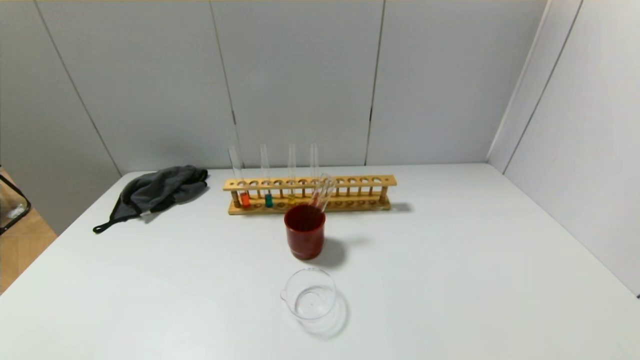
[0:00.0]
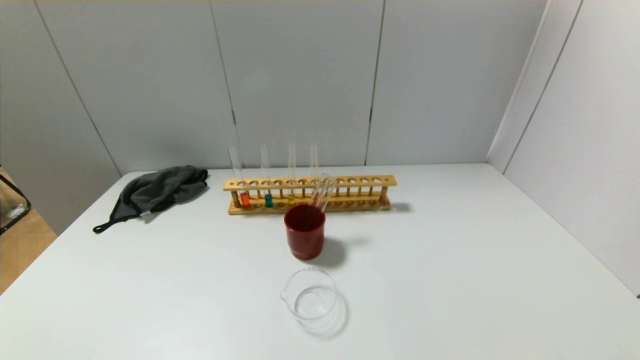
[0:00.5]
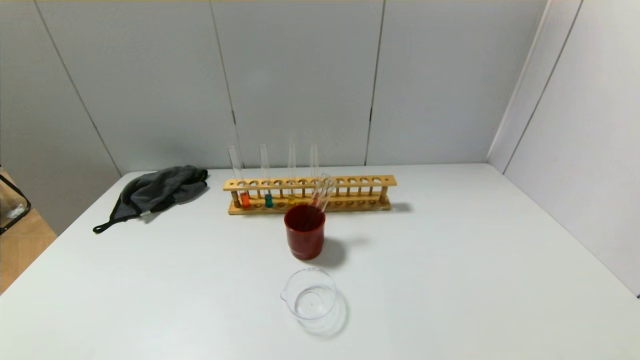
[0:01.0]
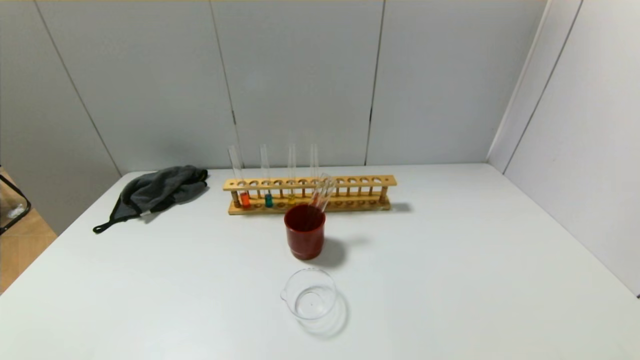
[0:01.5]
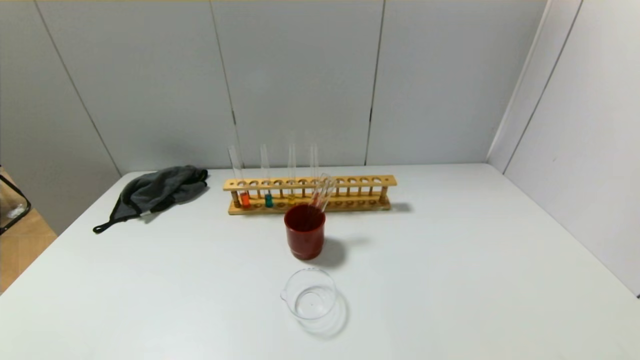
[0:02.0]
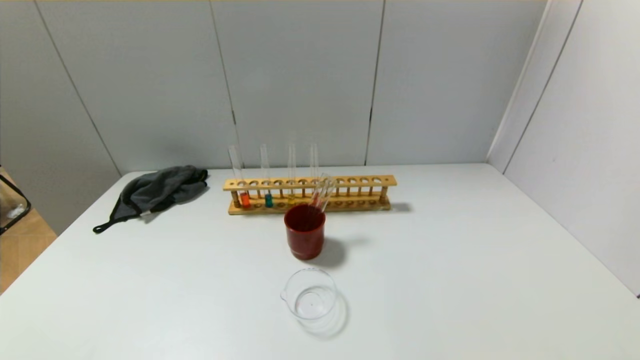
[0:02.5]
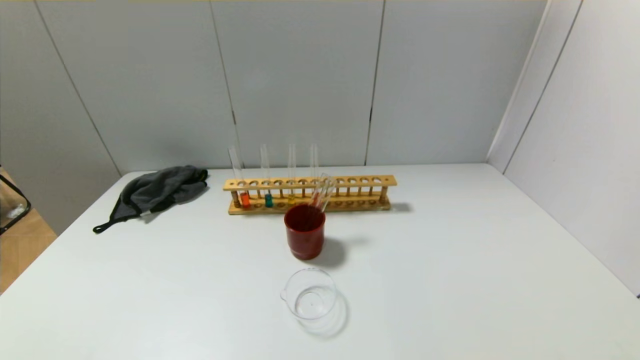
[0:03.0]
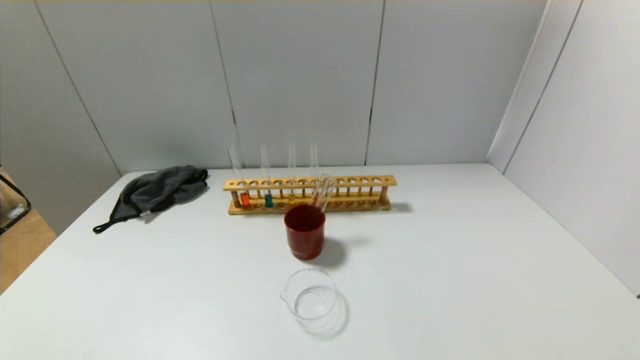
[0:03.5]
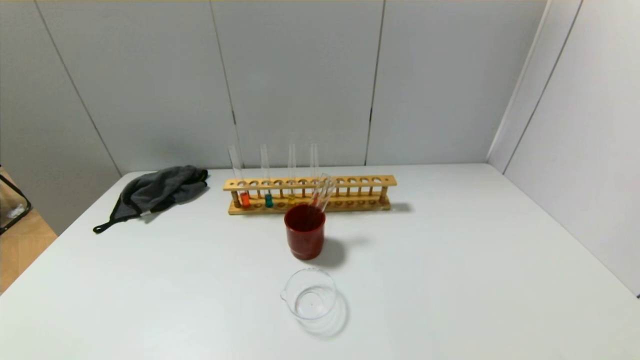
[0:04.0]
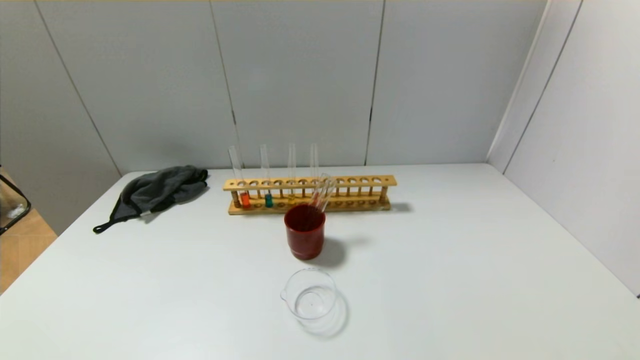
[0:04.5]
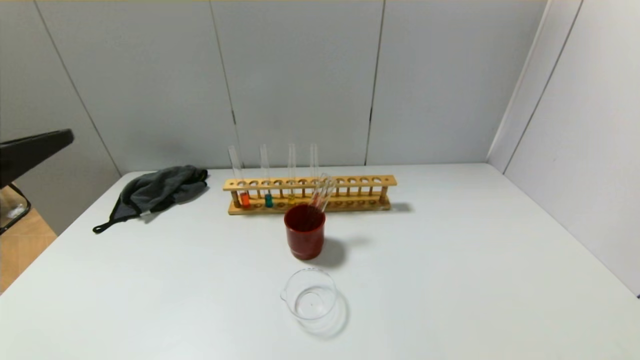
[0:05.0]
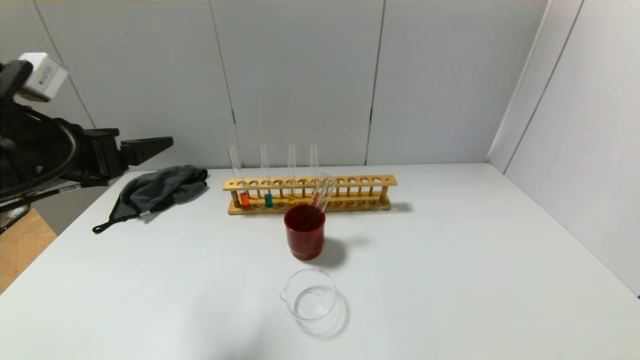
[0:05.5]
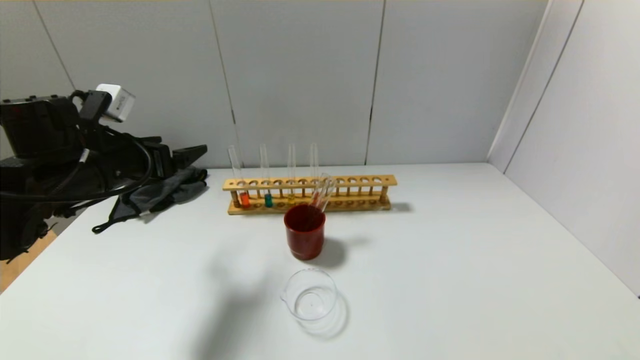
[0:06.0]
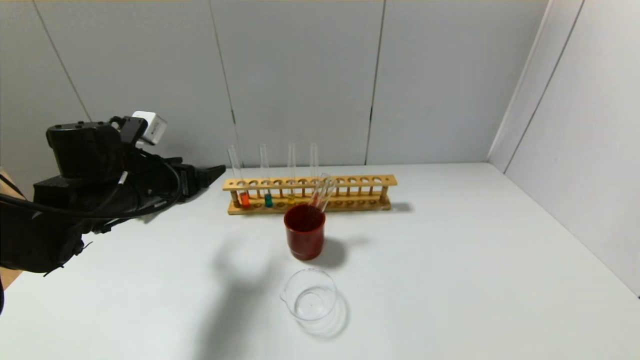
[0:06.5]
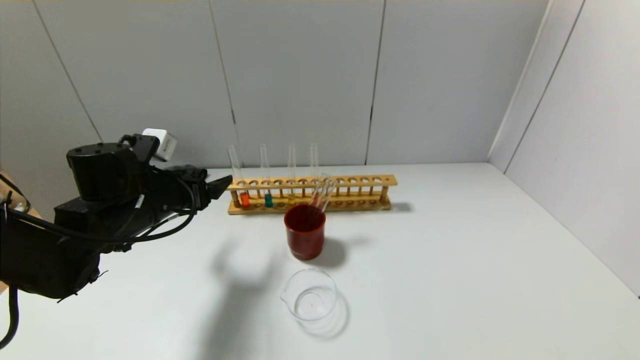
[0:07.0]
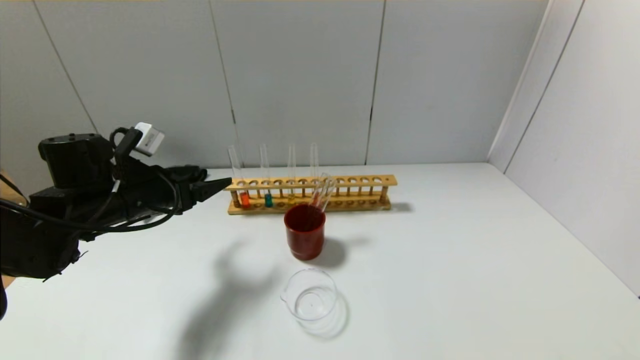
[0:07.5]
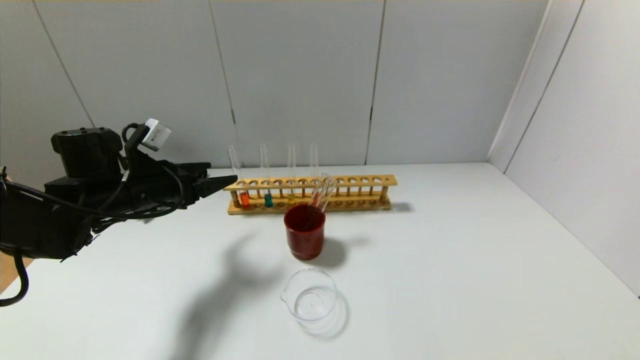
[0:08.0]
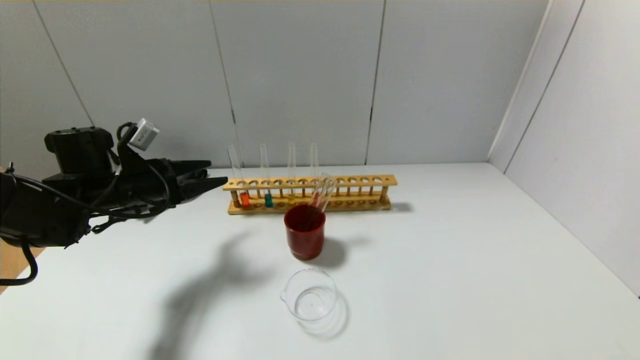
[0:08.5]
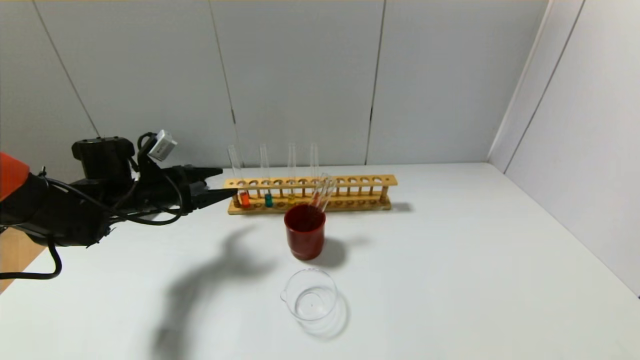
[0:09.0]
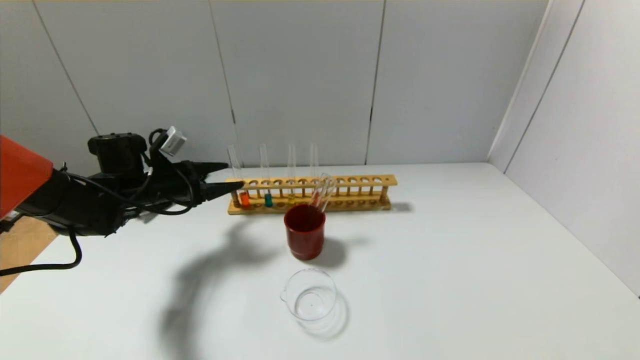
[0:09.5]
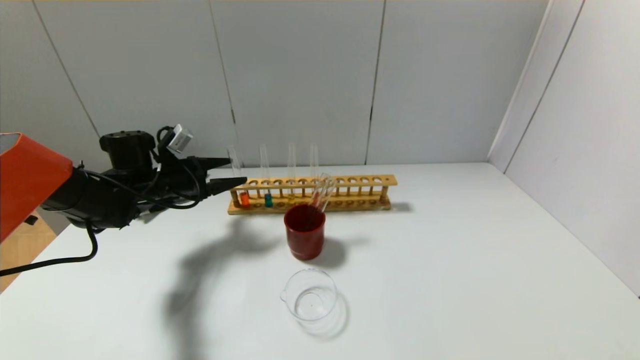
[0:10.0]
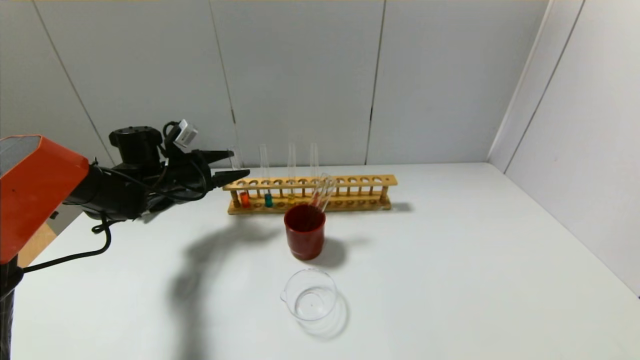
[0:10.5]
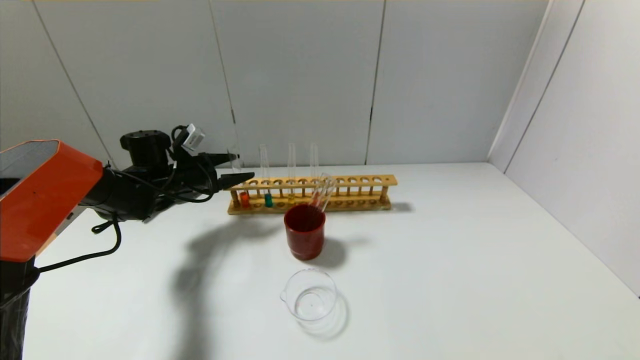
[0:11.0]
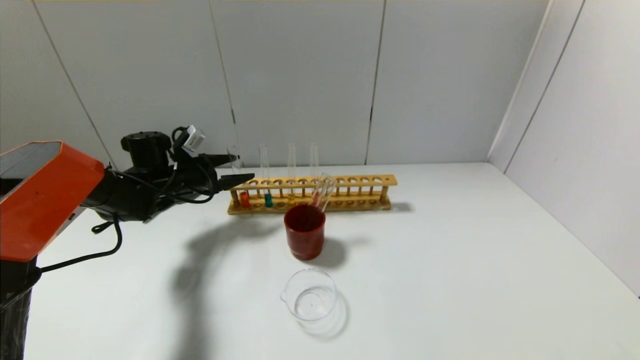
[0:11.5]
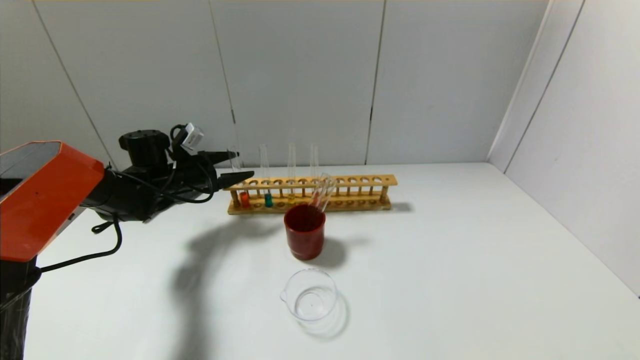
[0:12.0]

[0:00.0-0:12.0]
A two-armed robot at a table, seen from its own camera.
0:00.0 to 0:02.0: Neither gripper changes place.
0:04.0 to 0:06.0: The left gripper moves forward, roughly 35 cm.
0:06.0 to 0:08.0: The left gripper moves downward, some 5 cm.
0:08.0 to 0:10.0: The left gripper moves forward, some 10 cm.
0:10.0 to 0:12.0: The grippers move only a little.

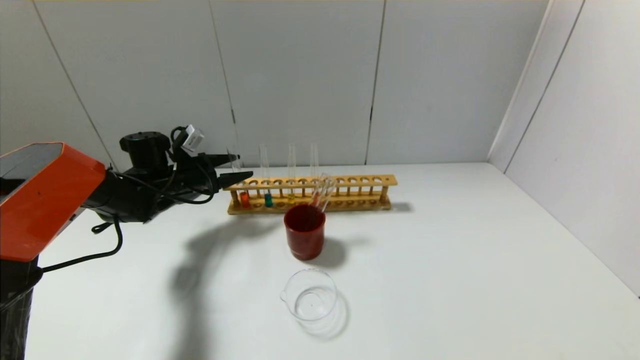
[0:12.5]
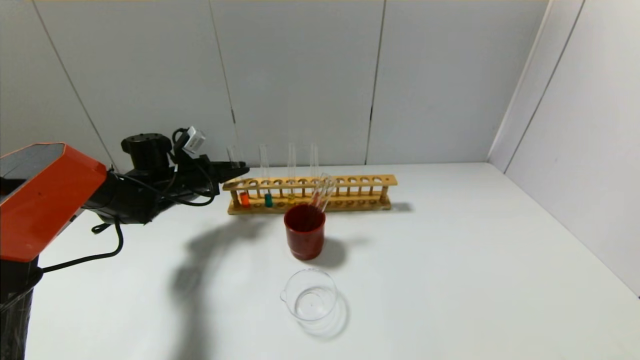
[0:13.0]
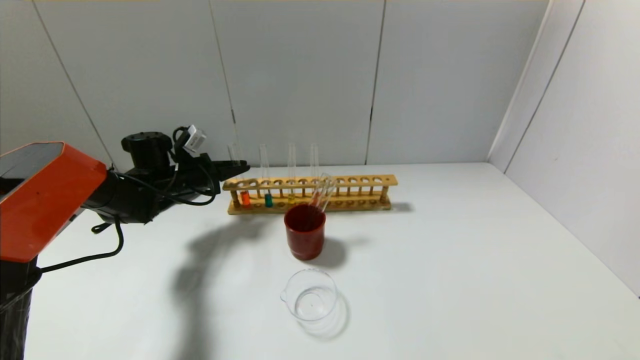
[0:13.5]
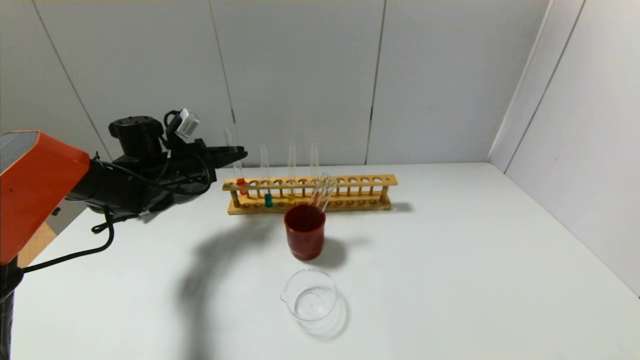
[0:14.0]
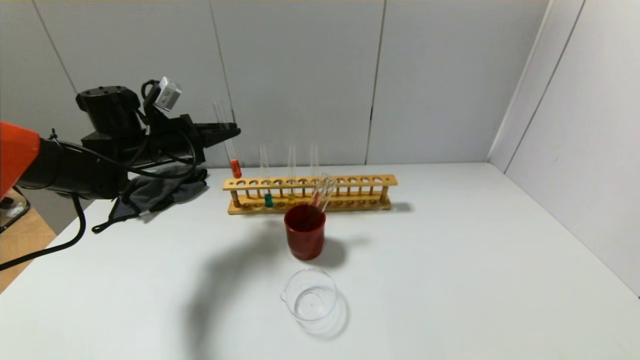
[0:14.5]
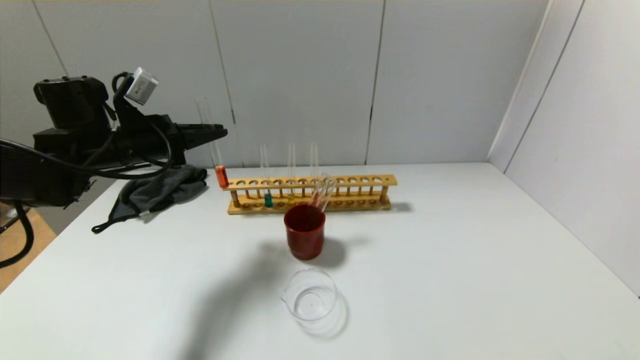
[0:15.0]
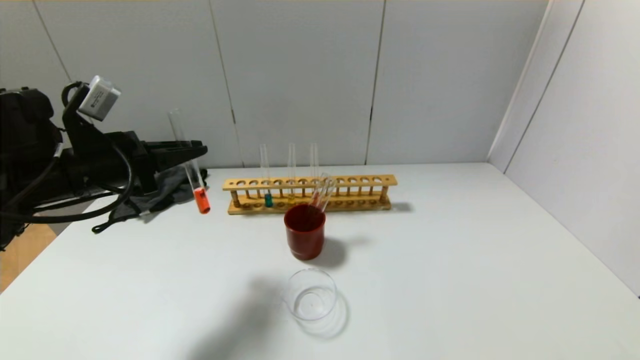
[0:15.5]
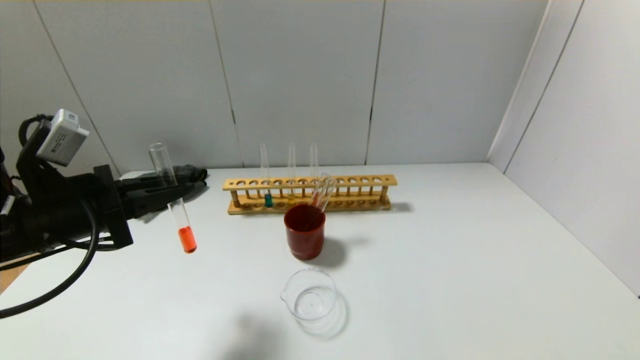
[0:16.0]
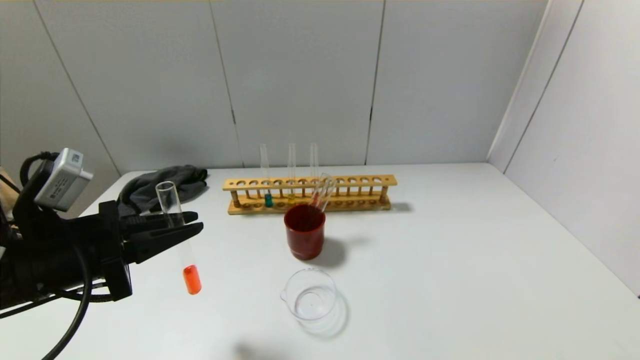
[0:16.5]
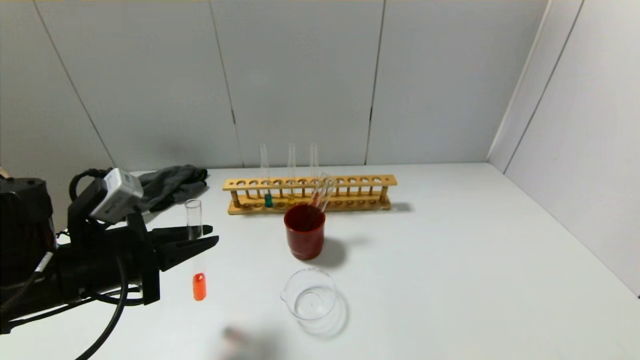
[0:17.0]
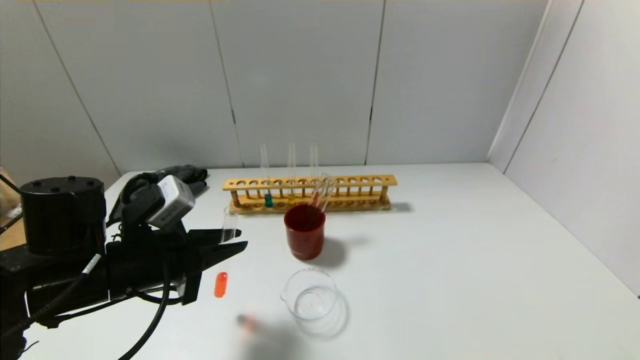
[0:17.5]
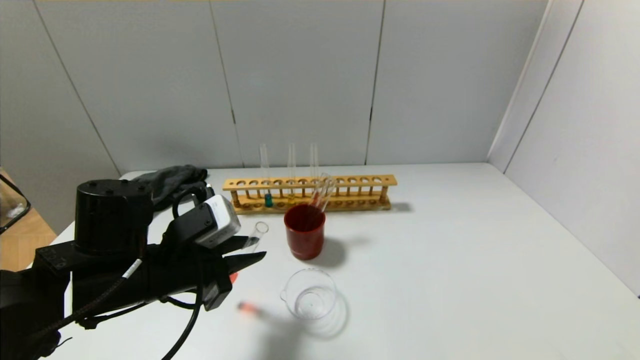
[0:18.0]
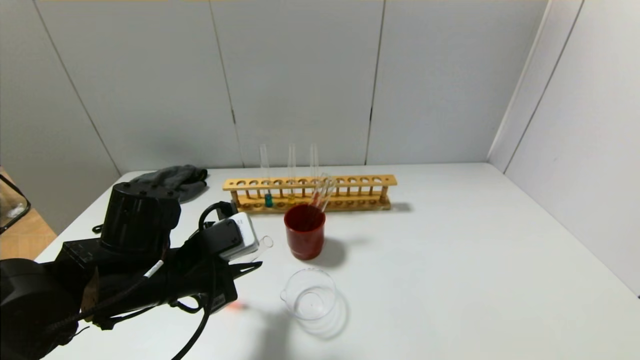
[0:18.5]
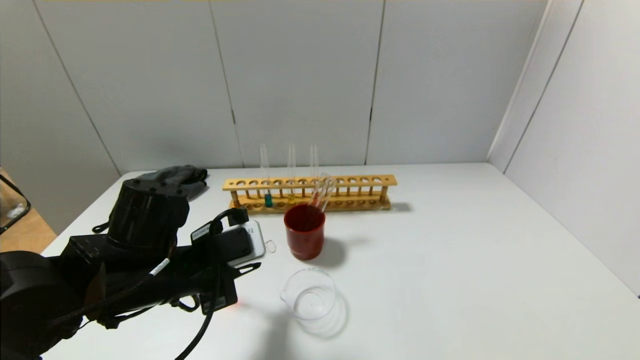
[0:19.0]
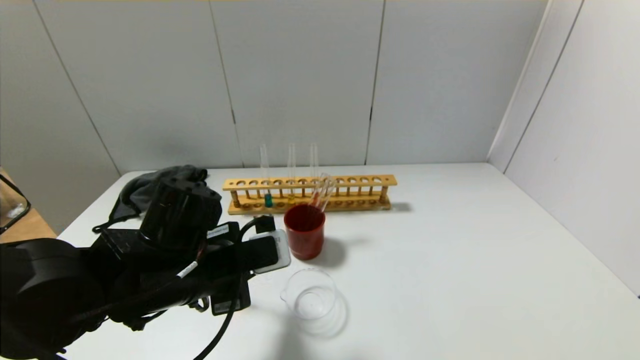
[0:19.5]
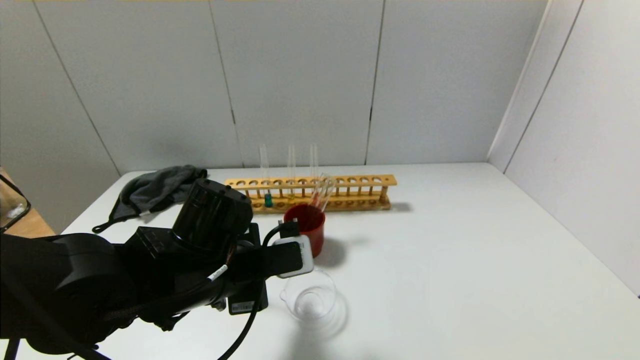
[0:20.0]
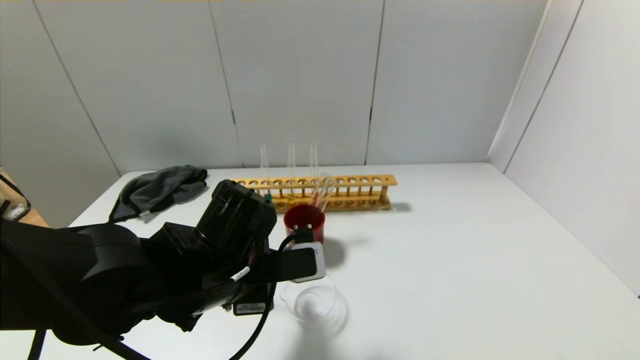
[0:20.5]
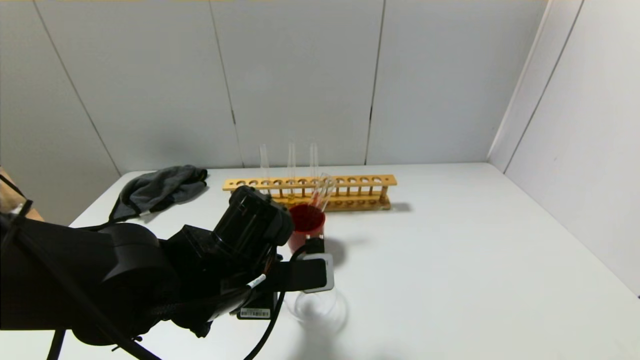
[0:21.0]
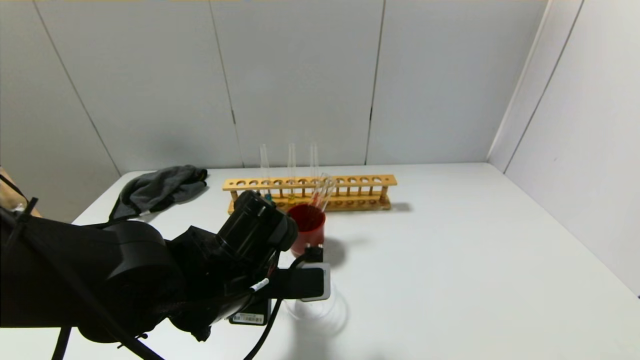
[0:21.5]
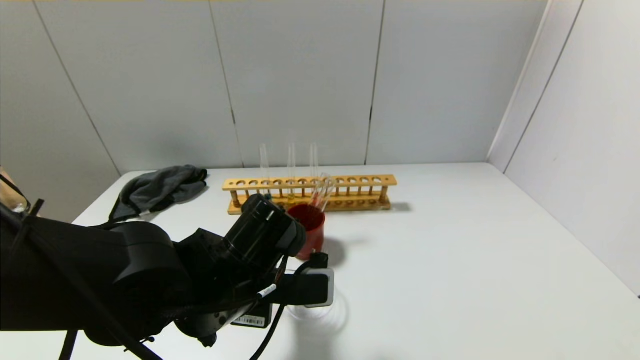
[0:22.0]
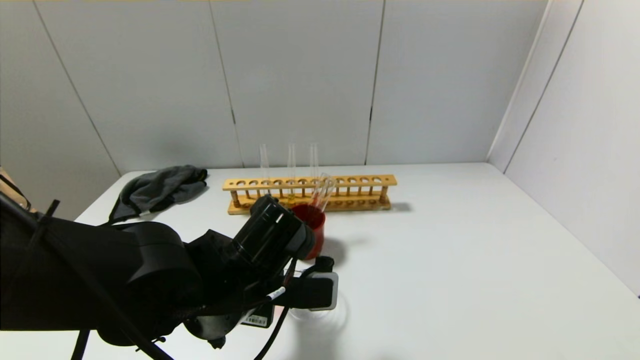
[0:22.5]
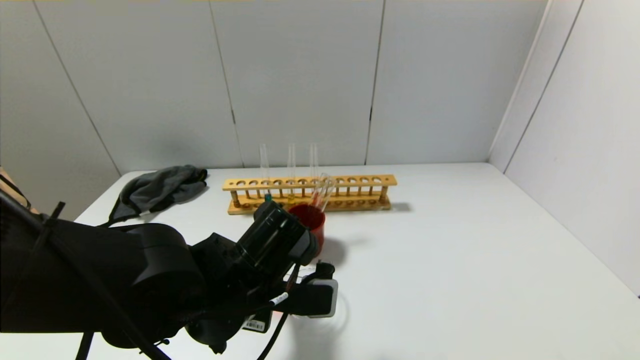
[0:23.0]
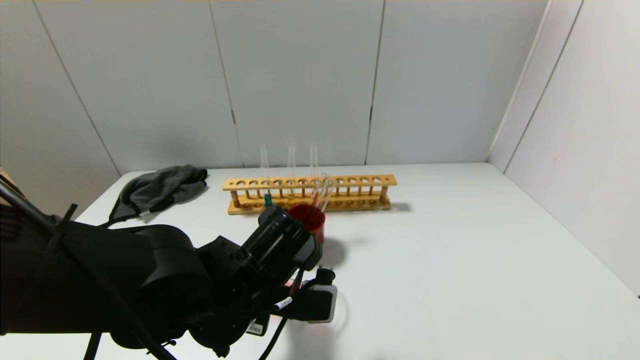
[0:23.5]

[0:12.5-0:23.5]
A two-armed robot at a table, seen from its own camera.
0:12.5 to 0:14.5: The left gripper travels upward by approximately 10 cm, and closes.
0:14.5 to 0:16.0: The left gripper travels backward by about 20 cm.
0:16.0 to 0:18.0: The left gripper moves to the right and downward, roughly 10 cm.
0:18.0 to 0:20.0: The left gripper moves to the right, about 5 cm.
0:20.0 to 0:21.5: The grippers make only small movements.
0:21.5 to 0:23.5: The grippers stay close to where they were, moving slightly.
